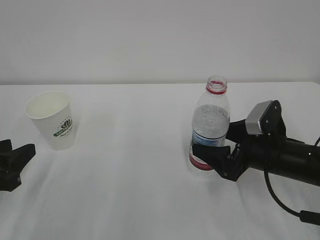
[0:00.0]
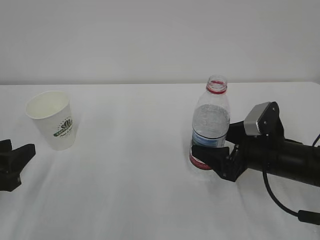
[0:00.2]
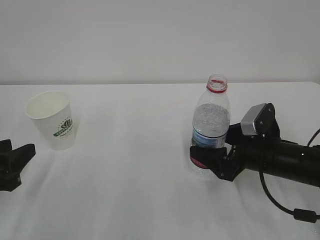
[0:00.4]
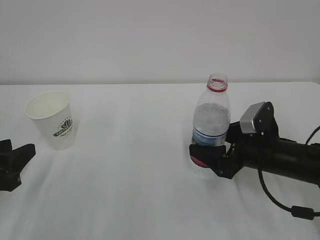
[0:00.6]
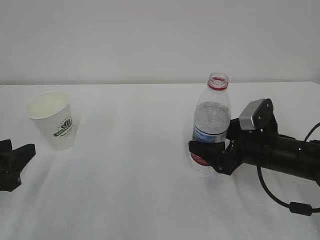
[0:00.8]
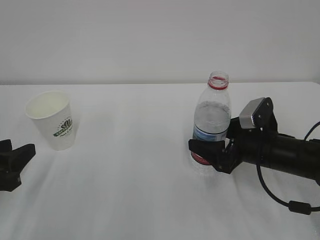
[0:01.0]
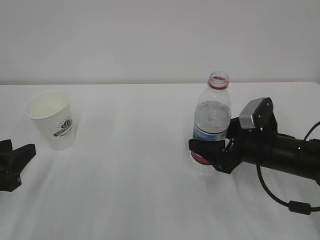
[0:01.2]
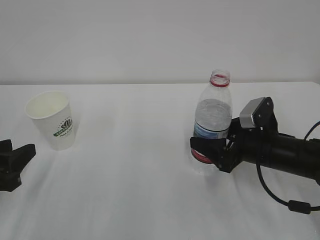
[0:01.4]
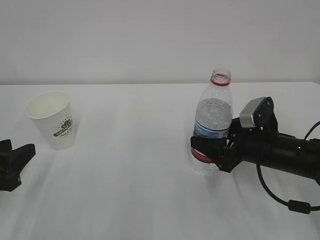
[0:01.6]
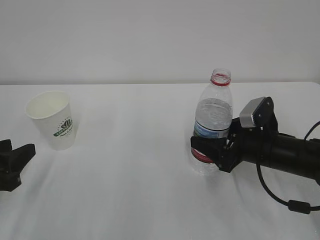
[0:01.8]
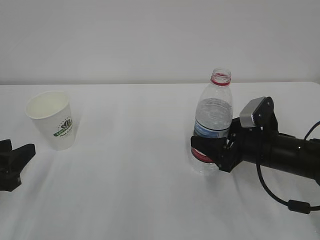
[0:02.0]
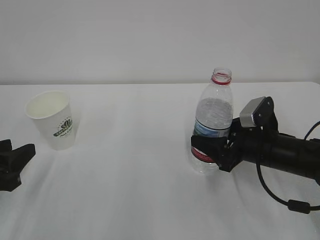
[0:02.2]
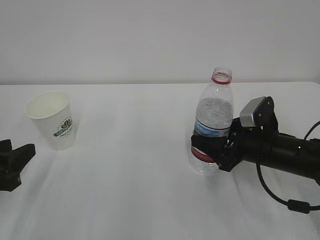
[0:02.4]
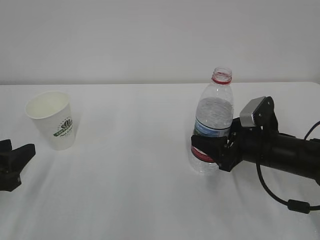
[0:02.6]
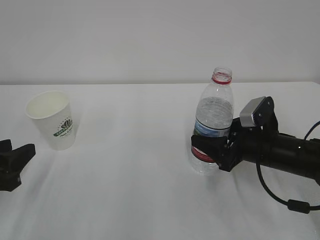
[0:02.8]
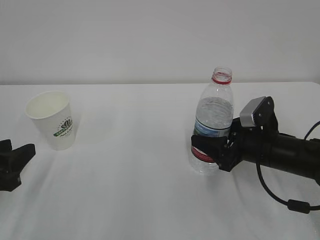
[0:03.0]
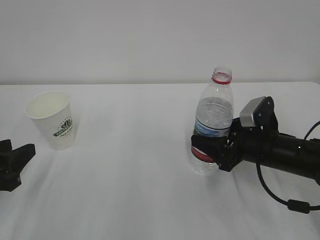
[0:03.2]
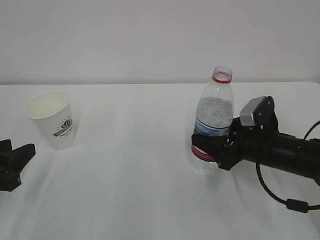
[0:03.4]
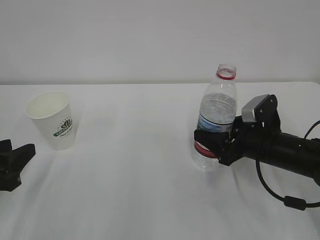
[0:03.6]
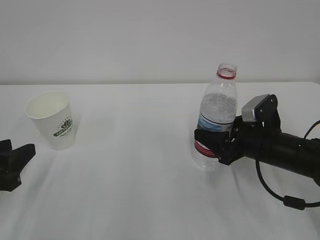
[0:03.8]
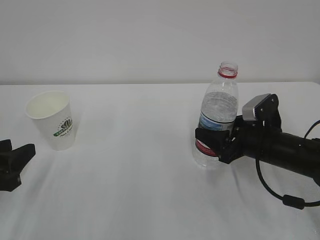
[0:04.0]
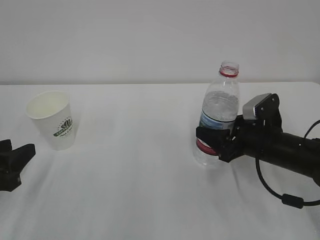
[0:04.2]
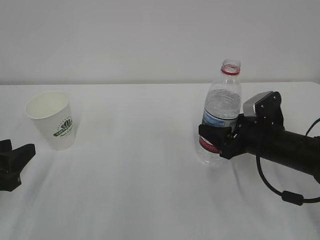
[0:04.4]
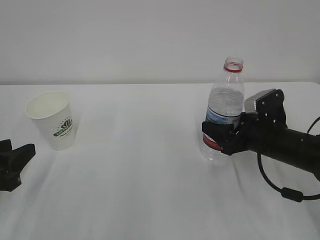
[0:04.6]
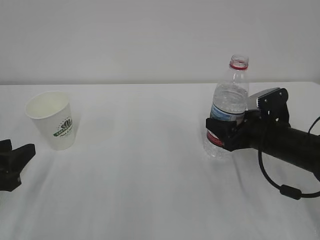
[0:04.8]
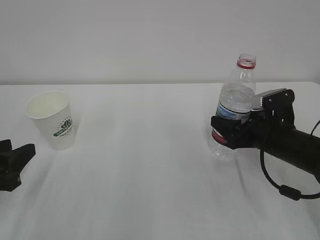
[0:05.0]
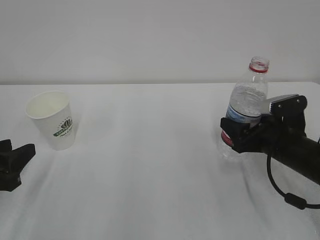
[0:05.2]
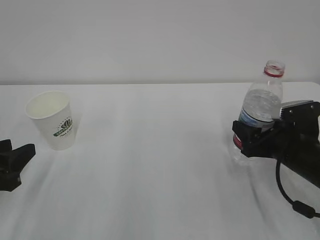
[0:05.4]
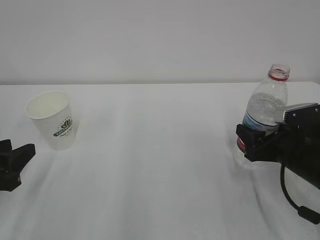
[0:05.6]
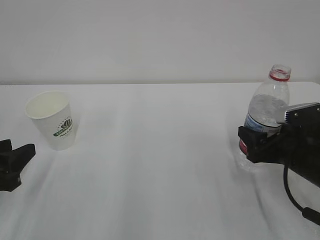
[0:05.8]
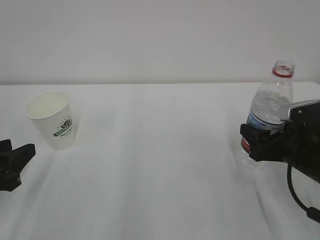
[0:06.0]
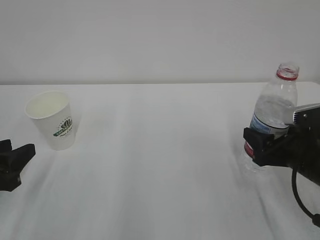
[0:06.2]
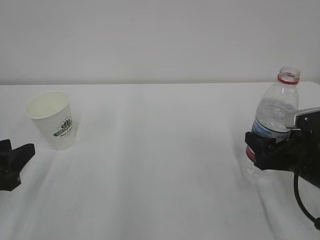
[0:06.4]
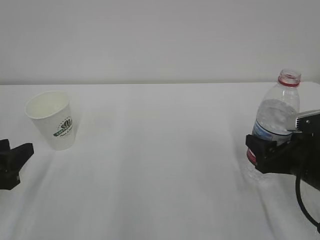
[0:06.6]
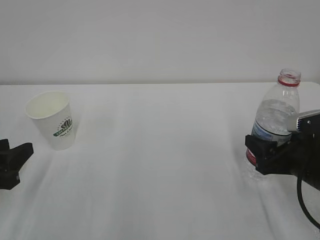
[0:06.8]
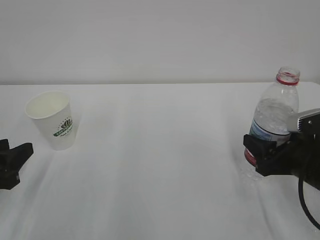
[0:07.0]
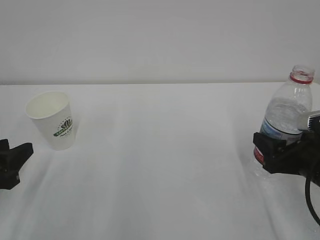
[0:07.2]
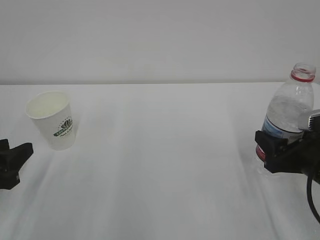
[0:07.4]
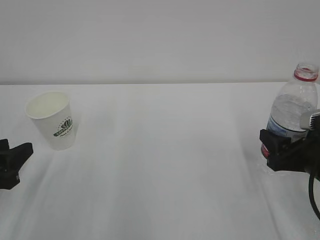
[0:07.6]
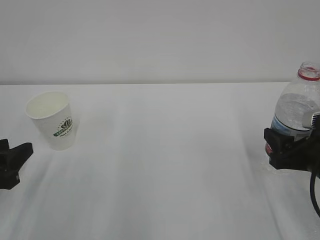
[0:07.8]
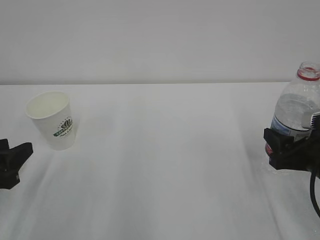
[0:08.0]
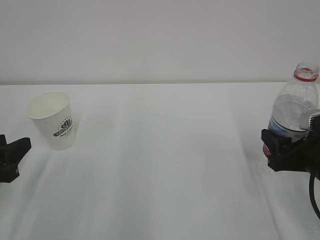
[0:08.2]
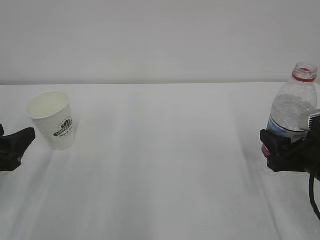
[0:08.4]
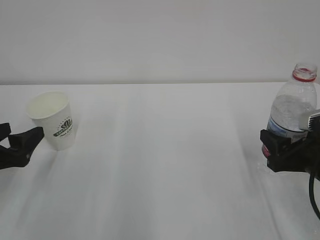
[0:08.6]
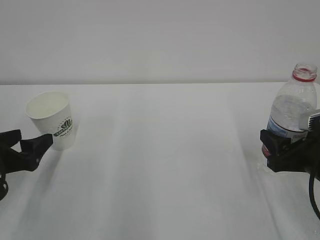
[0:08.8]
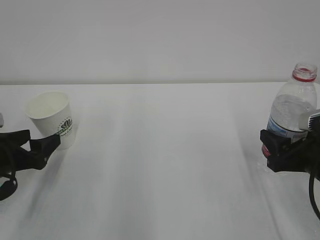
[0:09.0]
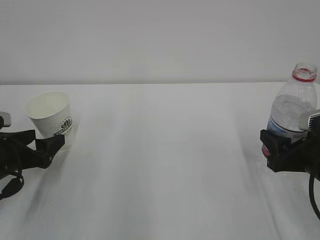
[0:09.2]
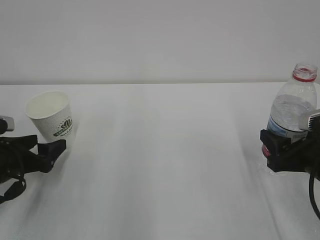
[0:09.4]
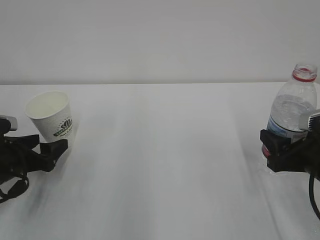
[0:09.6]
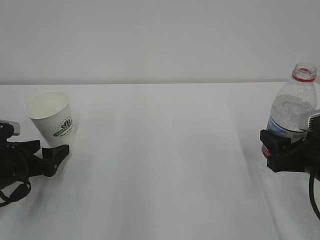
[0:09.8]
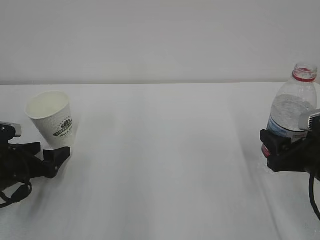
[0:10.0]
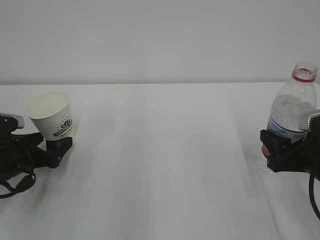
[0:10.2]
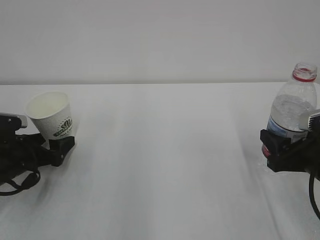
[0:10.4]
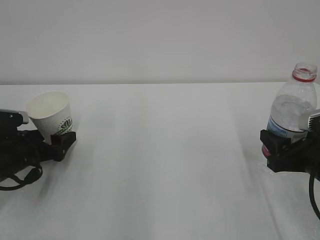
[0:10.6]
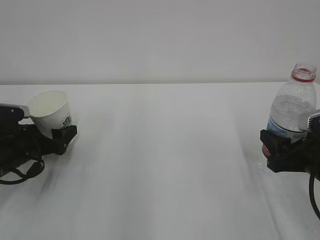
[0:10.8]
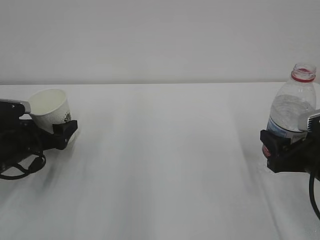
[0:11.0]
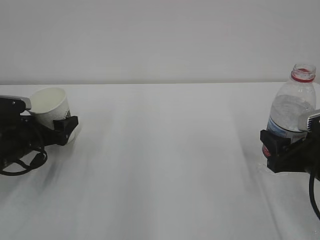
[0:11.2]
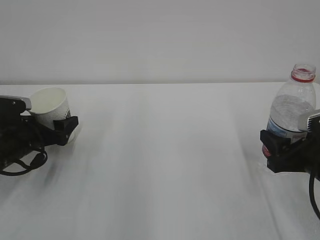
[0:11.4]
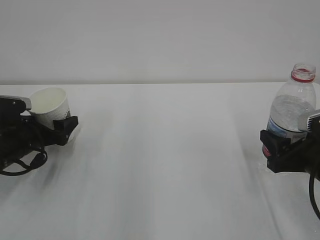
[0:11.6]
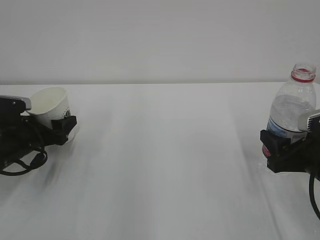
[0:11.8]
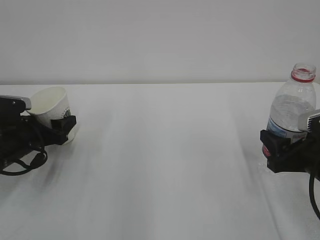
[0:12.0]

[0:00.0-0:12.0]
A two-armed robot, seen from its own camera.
0:00.0 to 0:01.6: The right gripper closes up.
0:01.6 to 0:03.0: Both grippers stay put.
0:03.0 to 0:04.4: There are only small adjustments of the grippers.
0:04.4 to 0:06.0: The right gripper changes place by approximately 5 cm.
0:06.0 to 0:07.6: The grippers move only a little.
0:07.6 to 0:09.0: The left gripper travels forward by roughly 5 cm, and opens.
0:09.0 to 0:10.4: The left gripper moves some 5 cm.
0:10.4 to 0:12.0: The left gripper closes its fingers.

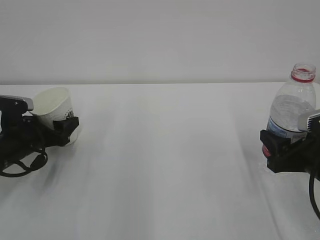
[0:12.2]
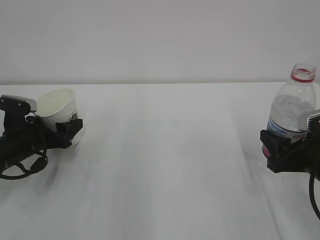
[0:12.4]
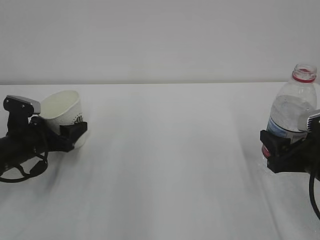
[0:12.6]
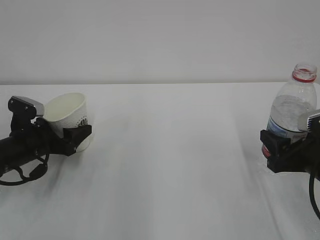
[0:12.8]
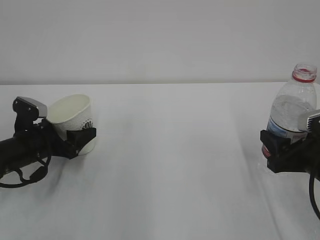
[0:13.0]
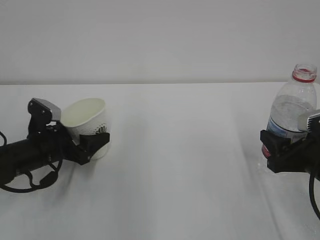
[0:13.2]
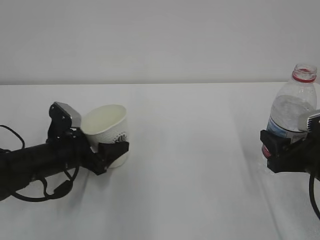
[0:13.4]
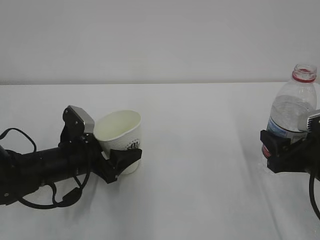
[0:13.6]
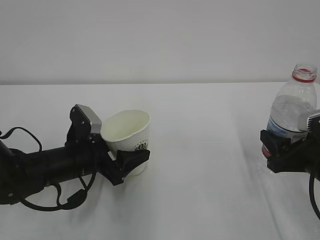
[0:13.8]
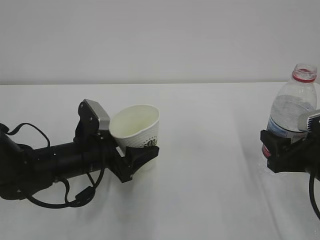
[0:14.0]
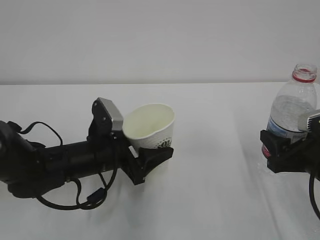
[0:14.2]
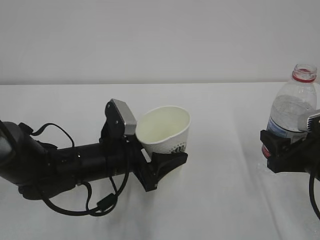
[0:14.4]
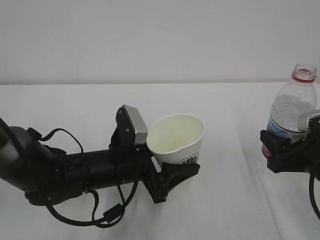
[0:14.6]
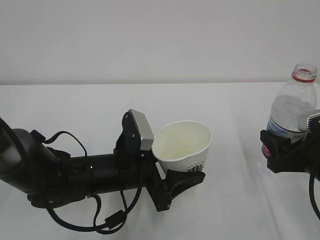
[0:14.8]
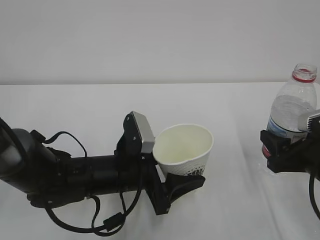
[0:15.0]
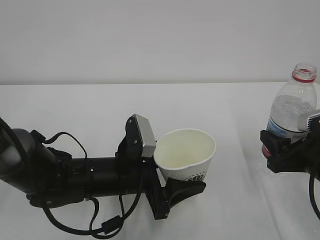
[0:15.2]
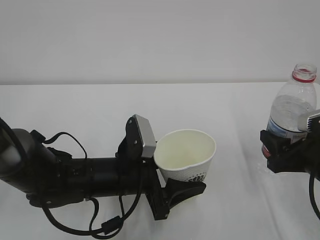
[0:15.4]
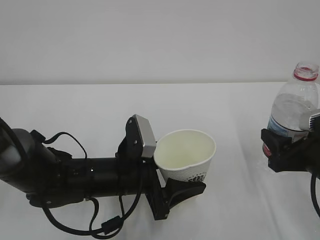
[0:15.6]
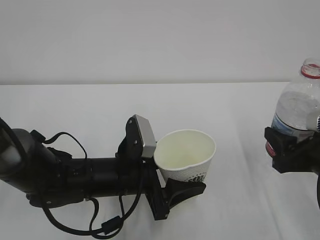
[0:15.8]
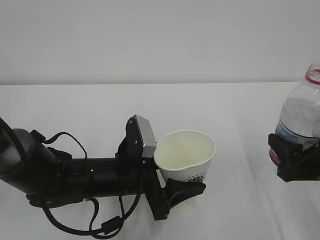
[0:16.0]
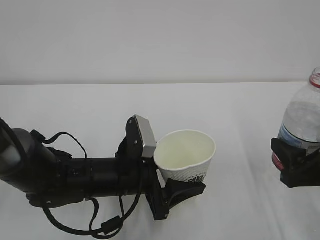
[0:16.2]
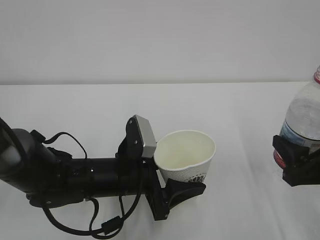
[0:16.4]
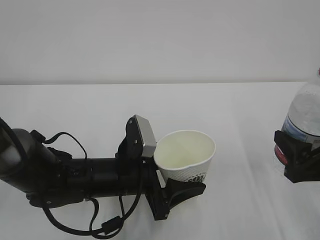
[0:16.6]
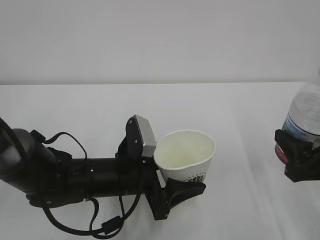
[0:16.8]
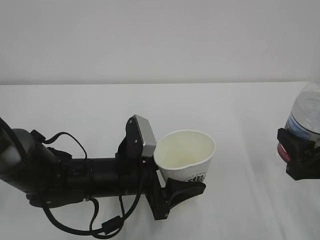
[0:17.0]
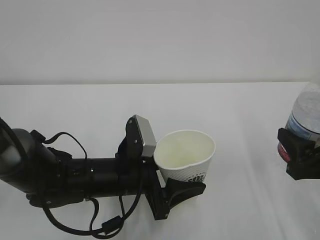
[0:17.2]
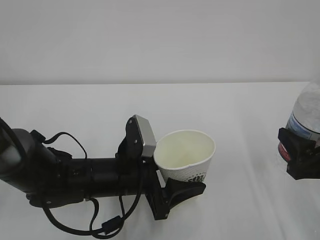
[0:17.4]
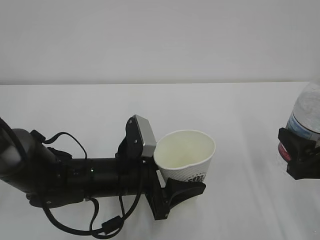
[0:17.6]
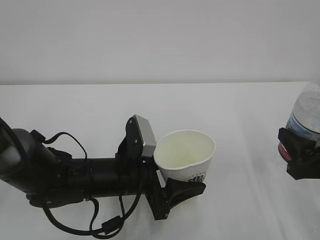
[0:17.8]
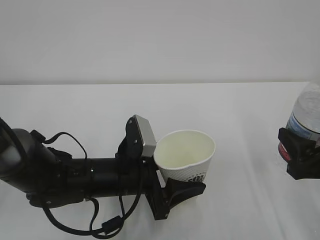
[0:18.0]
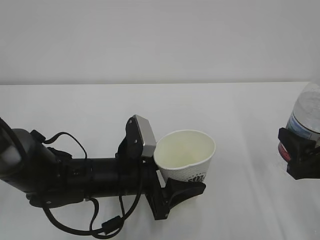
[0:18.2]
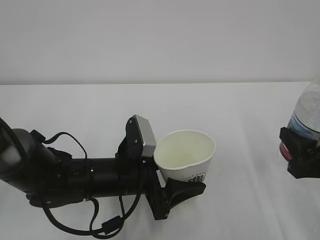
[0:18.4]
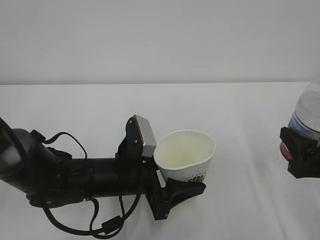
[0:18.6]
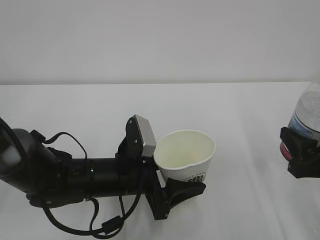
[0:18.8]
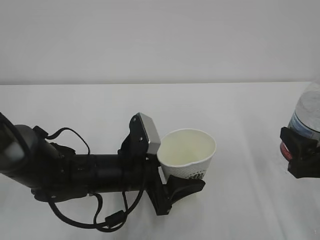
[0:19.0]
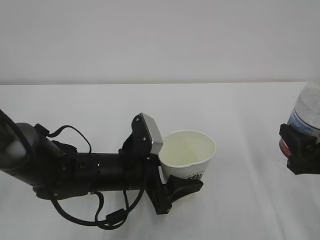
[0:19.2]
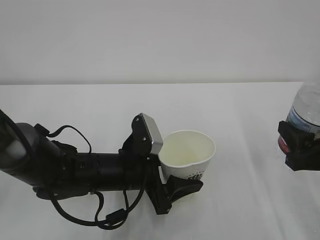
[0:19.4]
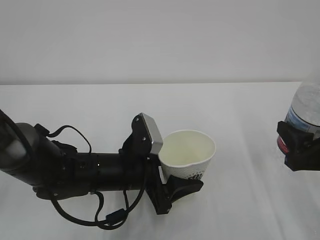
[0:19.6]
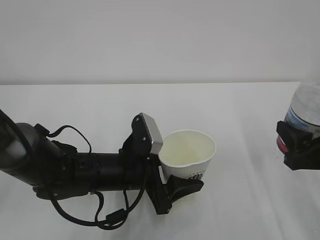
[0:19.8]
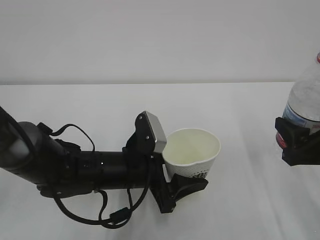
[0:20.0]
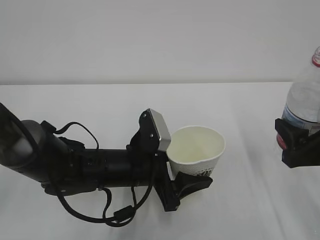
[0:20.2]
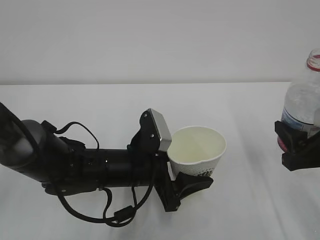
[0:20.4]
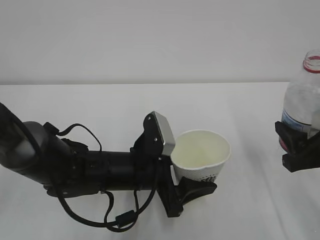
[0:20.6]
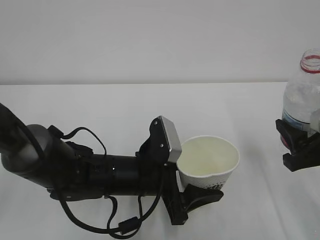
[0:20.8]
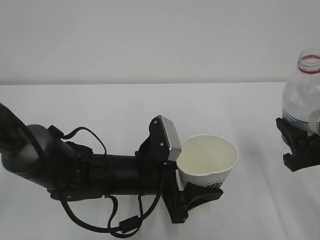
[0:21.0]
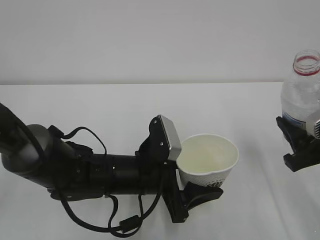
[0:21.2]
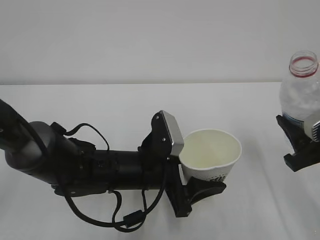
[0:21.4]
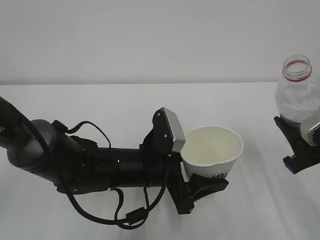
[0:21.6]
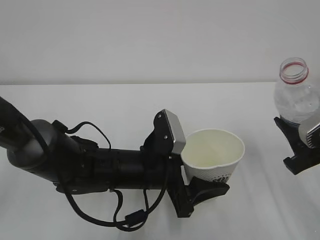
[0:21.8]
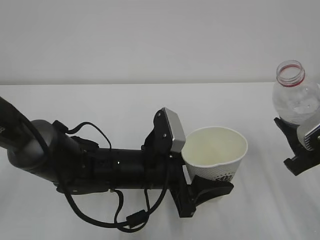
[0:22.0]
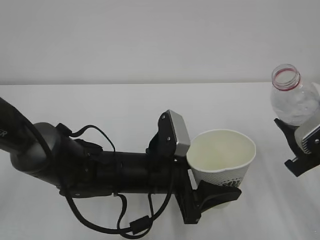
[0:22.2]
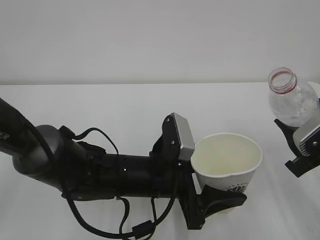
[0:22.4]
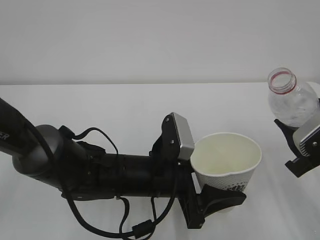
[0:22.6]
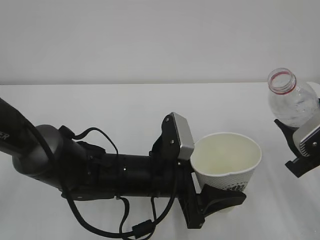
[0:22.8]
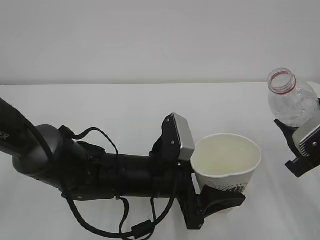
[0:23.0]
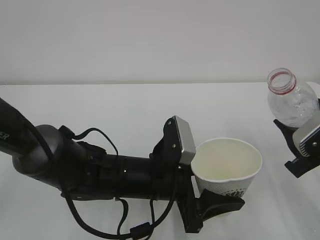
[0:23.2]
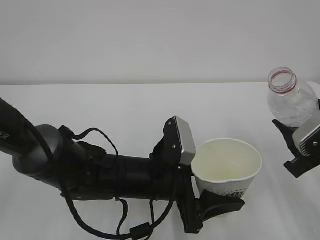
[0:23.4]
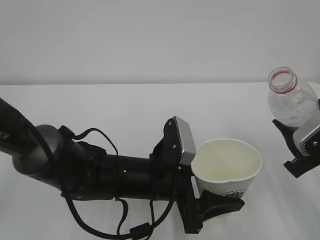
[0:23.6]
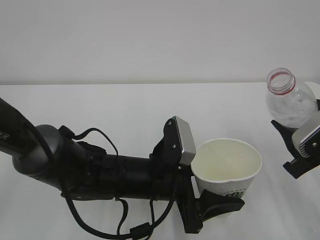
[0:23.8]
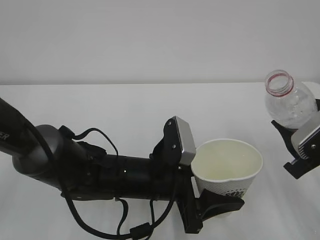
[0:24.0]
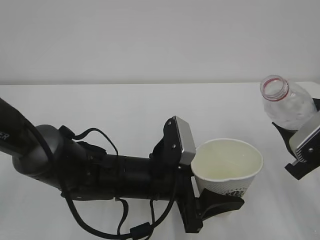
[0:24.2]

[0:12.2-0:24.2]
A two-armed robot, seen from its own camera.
0:12.2 to 0:13.8: The left gripper is displaced to the right by approximately 10 cm.
0:13.8 to 0:15.2: The left gripper goes roughly 10 cm to the right.
0:15.2 to 0:16.6: The grippers move only a little.
0:16.6 to 0:18.2: The two grippers keep their place.
0:18.2 to 0:19.8: There are only small adjustments of the grippers.
0:21.2 to 0:22.6: There are only small adjustments of the grippers.
0:22.6 to 0:24.2: Both grippers stay about where they are.
